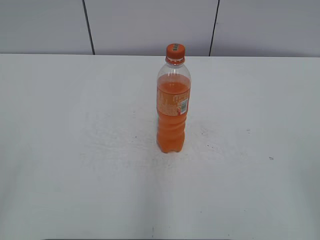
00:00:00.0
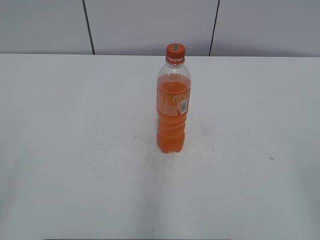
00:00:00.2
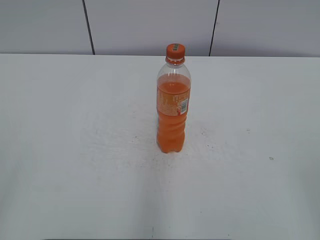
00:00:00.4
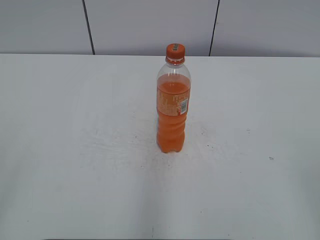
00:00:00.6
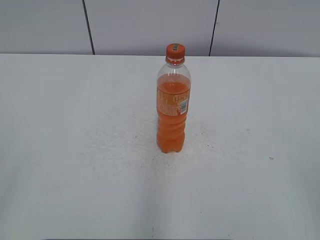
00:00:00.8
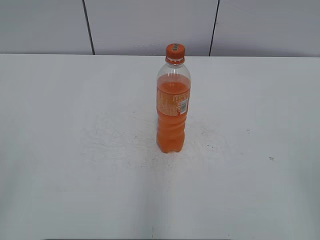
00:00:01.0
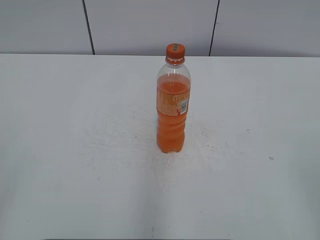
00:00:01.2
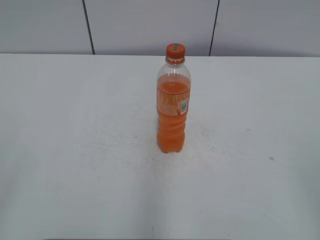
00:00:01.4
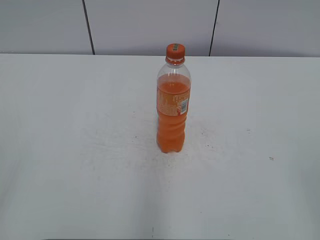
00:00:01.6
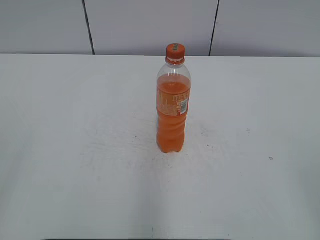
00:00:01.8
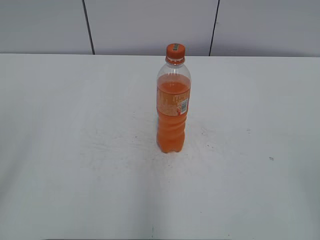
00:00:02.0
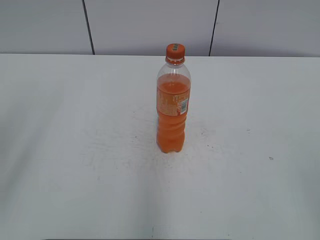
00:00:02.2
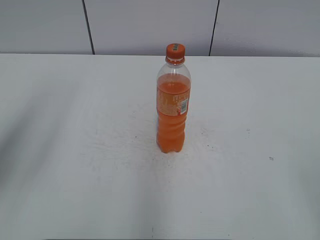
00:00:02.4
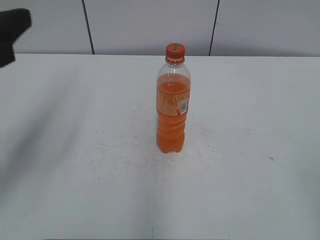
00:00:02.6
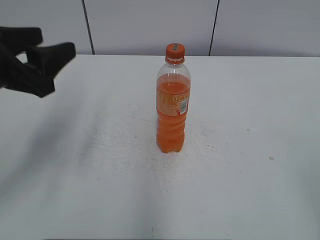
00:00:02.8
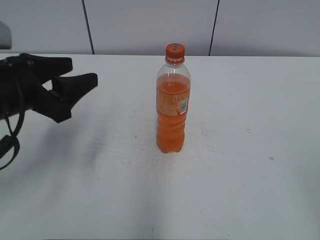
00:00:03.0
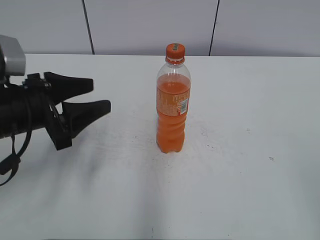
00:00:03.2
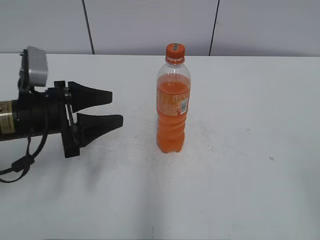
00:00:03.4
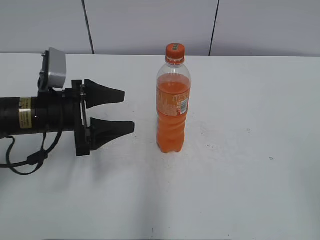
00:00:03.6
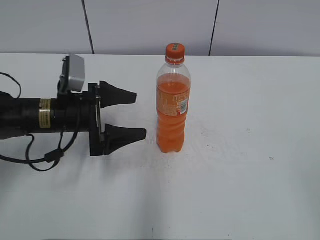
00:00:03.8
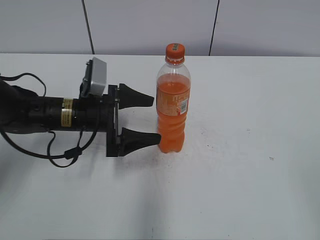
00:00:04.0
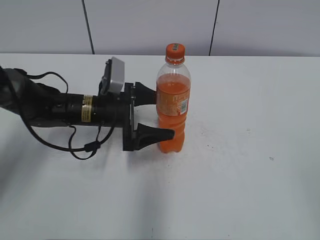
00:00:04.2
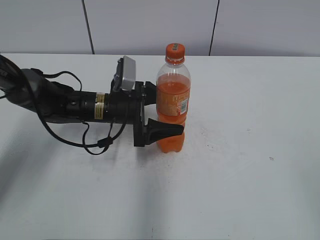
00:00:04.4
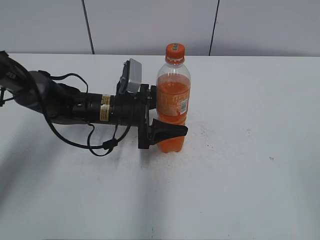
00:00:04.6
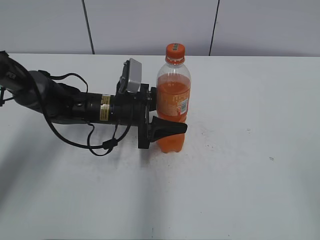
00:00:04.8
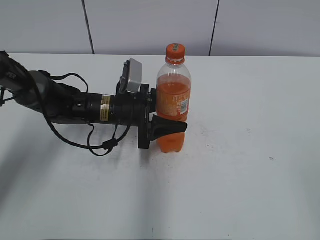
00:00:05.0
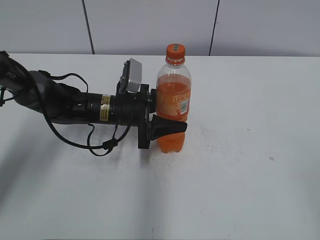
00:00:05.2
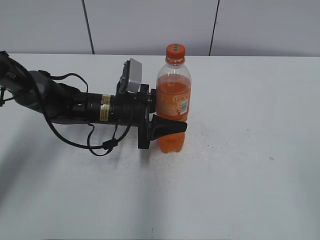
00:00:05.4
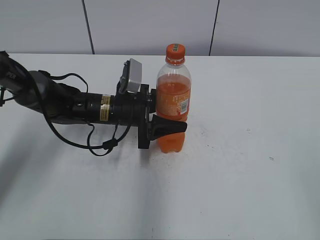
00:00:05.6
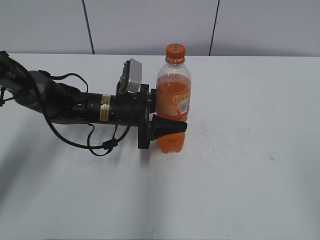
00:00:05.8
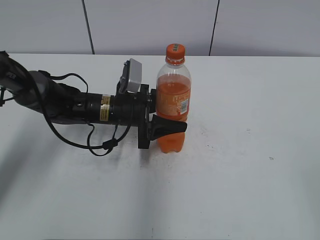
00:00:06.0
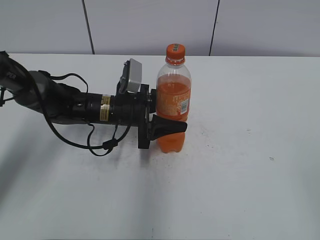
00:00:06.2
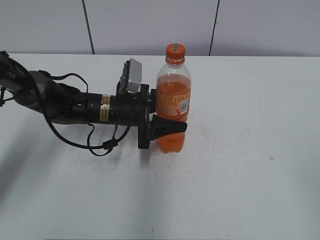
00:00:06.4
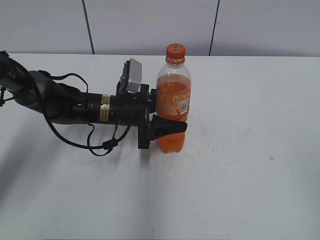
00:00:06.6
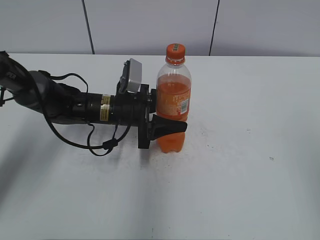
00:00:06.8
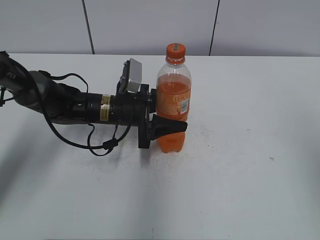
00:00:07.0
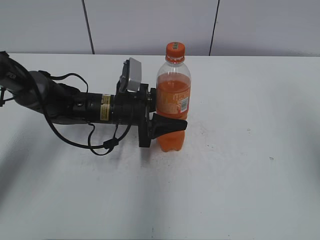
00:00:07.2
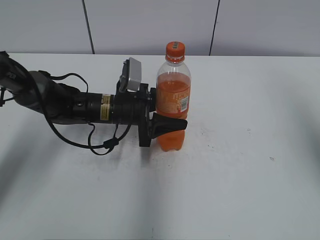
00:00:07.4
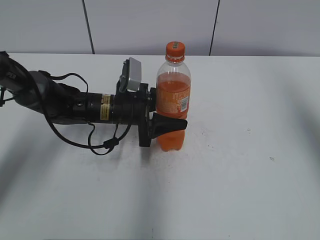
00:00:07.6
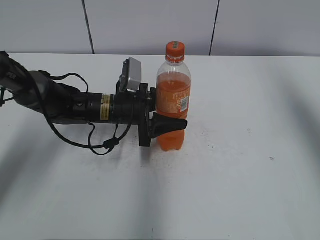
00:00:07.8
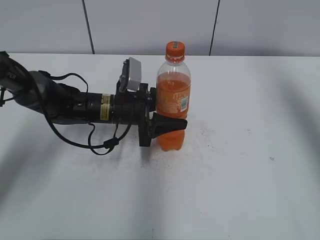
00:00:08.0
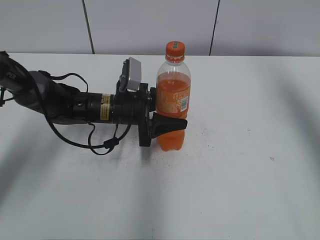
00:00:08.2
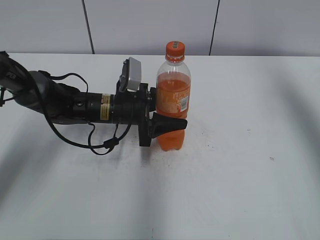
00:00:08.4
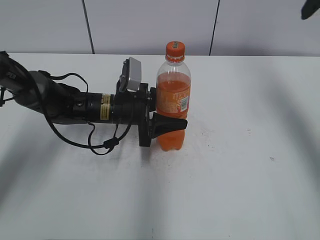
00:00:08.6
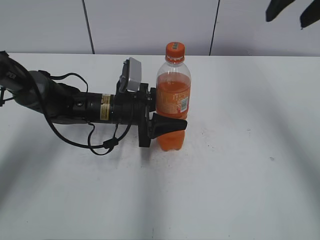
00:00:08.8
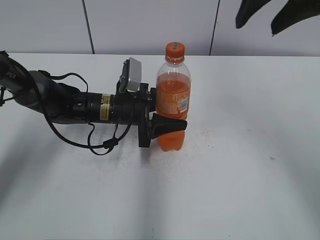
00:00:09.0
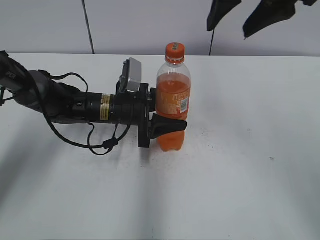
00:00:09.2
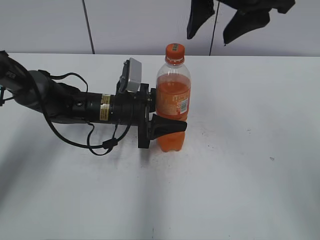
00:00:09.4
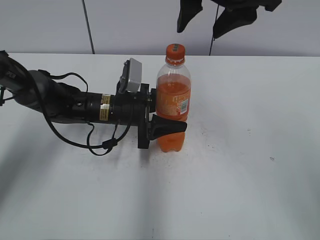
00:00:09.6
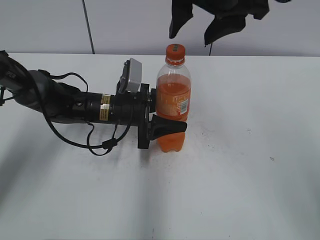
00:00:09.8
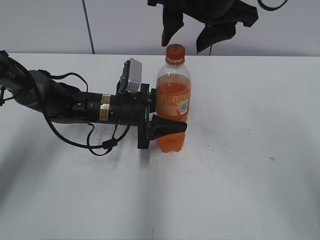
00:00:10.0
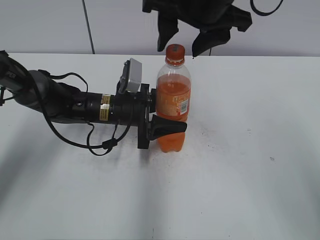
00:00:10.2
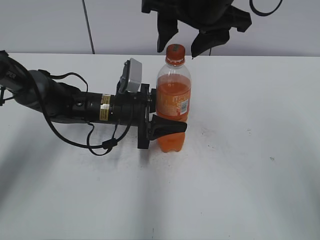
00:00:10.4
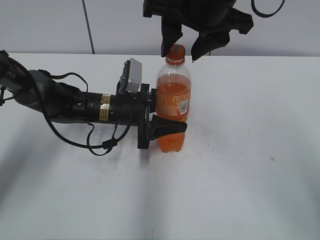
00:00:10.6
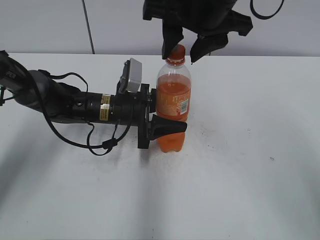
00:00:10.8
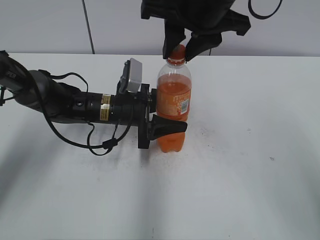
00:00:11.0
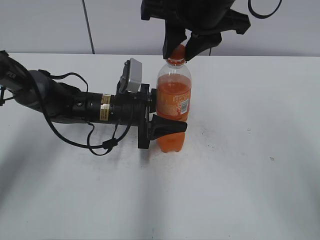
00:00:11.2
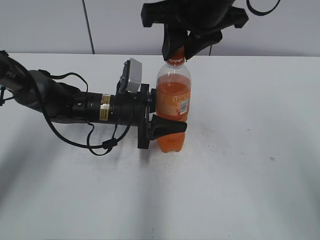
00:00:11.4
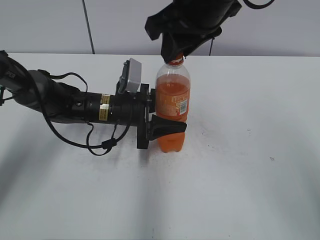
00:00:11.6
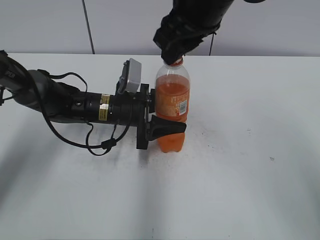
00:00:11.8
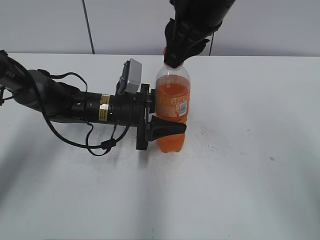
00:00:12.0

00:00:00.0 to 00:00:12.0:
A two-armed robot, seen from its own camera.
Step, 00:00:00.0 to 00:00:05.2: Grab the Mirinda with the left hand.
00:00:01.6 to 00:00:03.0: The left gripper shifts roughly 25 cm forward.
00:00:03.0 to 00:00:04.4: The left gripper heads downward, forward and to the right, covering some 20 cm, and opens its fingers.
00:00:04.4 to 00:00:06.0: The left gripper closes.
00:00:06.0 to 00:00:07.6: The right gripper heads forward and upward, covering roughly 30 cm.
00:00:07.6 to 00:00:09.0: The right gripper shifts roughly 15 cm to the left and forward.
00:00:09.0 to 00:00:10.4: The right gripper travels to the left by approximately 10 cm.
00:00:10.4 to 00:00:12.0: The right gripper closes.

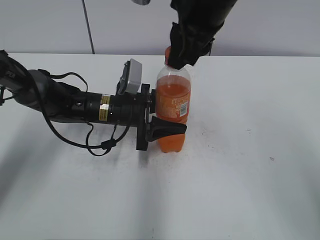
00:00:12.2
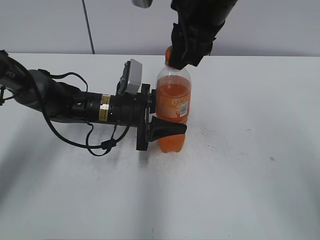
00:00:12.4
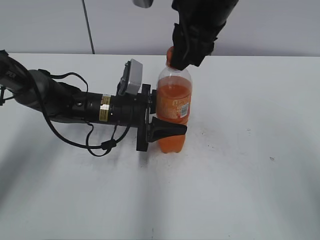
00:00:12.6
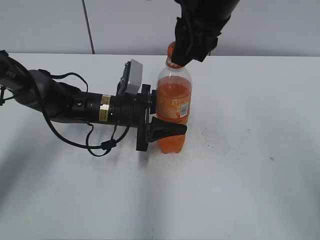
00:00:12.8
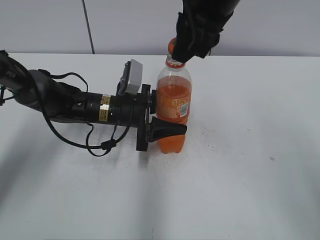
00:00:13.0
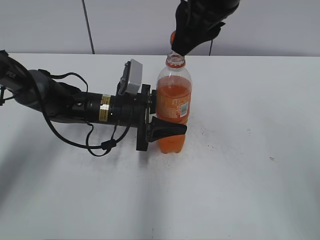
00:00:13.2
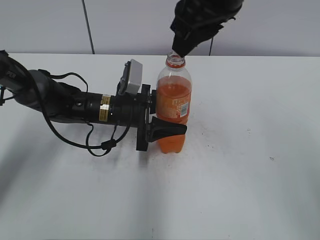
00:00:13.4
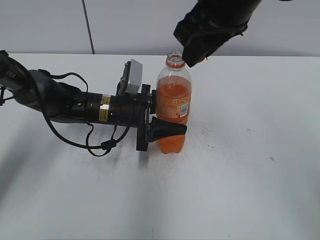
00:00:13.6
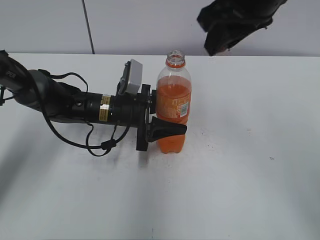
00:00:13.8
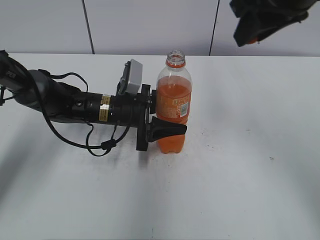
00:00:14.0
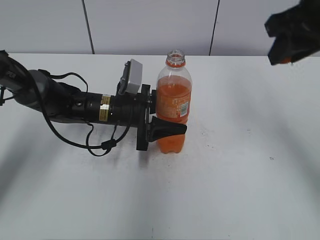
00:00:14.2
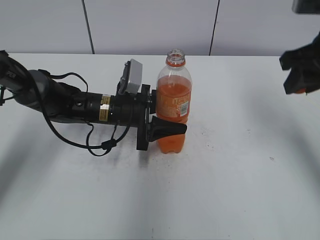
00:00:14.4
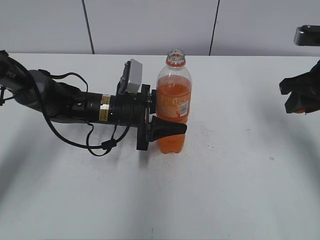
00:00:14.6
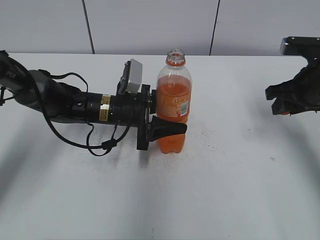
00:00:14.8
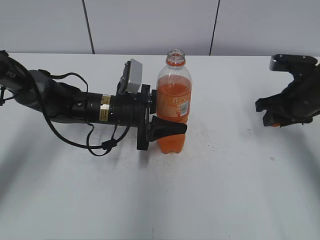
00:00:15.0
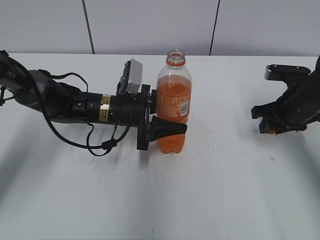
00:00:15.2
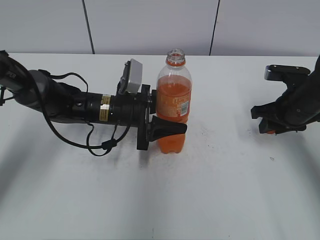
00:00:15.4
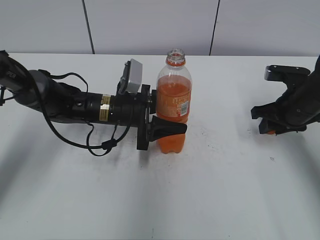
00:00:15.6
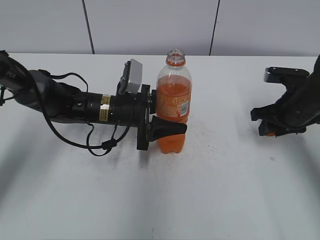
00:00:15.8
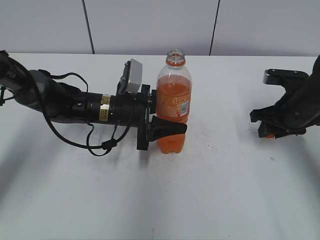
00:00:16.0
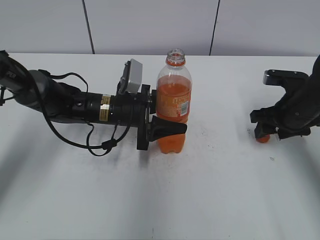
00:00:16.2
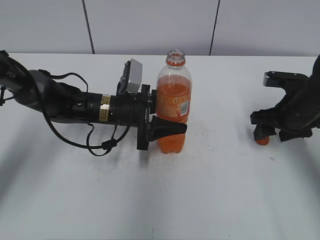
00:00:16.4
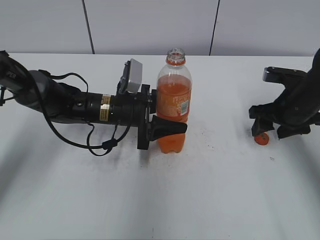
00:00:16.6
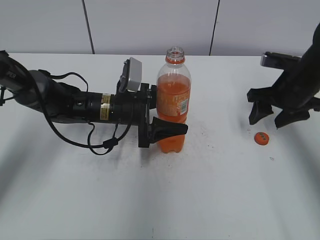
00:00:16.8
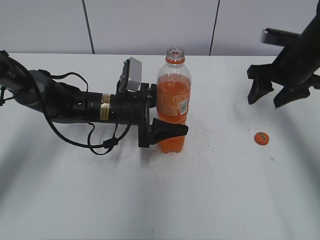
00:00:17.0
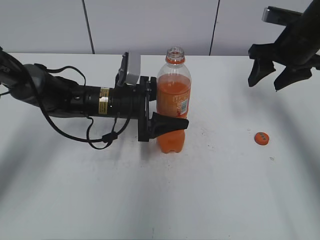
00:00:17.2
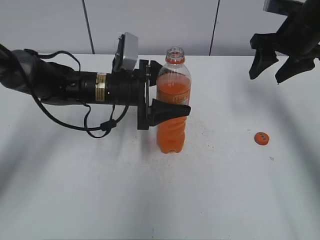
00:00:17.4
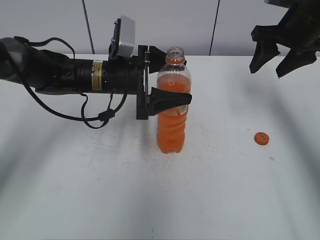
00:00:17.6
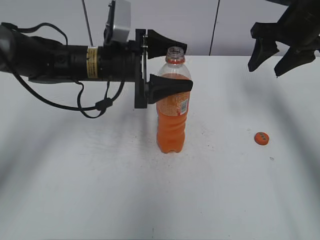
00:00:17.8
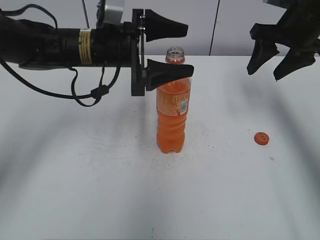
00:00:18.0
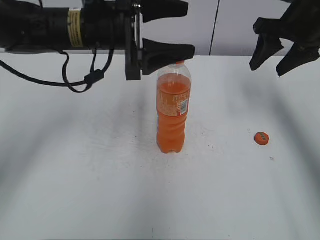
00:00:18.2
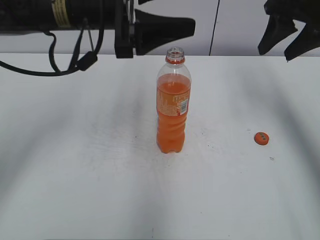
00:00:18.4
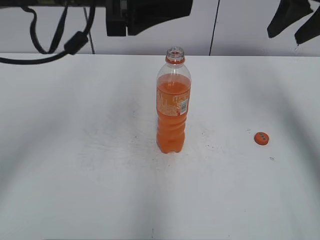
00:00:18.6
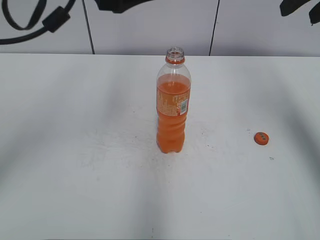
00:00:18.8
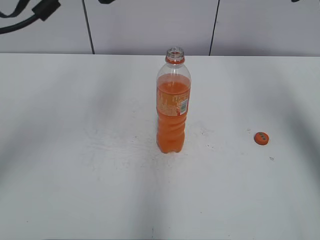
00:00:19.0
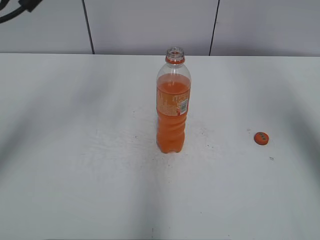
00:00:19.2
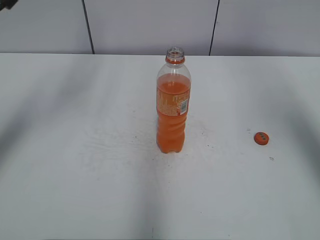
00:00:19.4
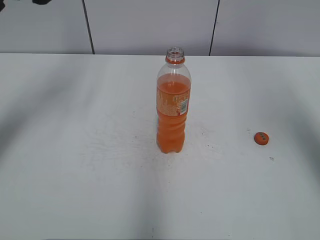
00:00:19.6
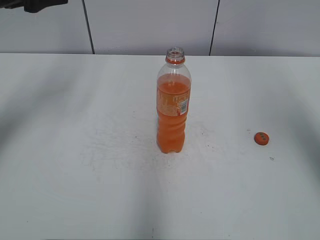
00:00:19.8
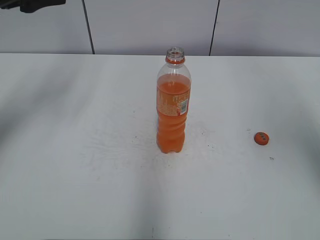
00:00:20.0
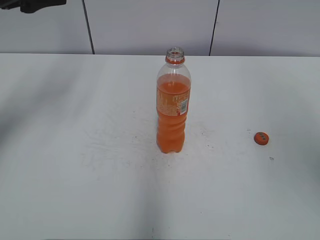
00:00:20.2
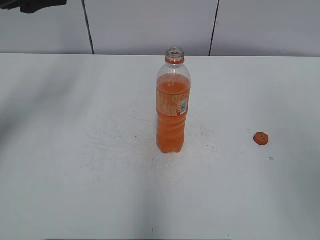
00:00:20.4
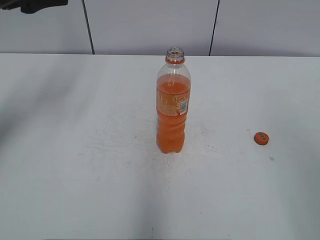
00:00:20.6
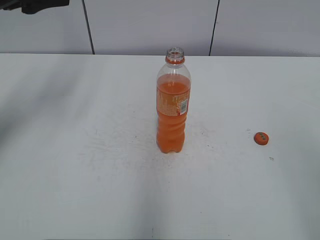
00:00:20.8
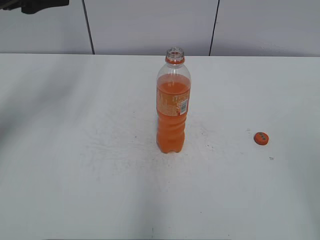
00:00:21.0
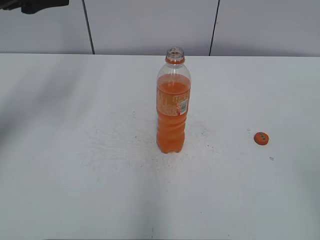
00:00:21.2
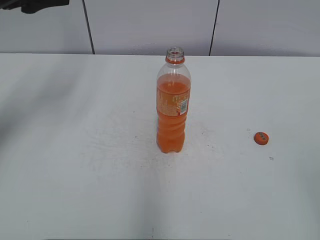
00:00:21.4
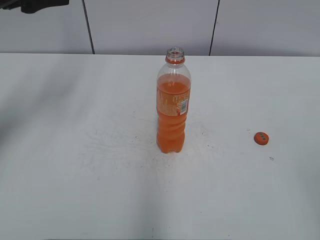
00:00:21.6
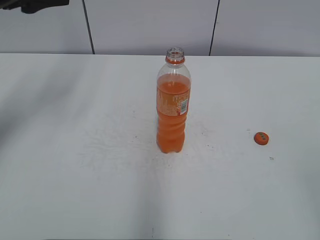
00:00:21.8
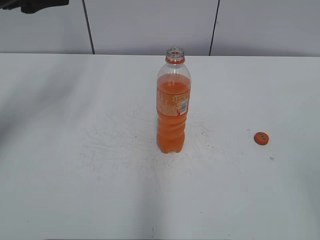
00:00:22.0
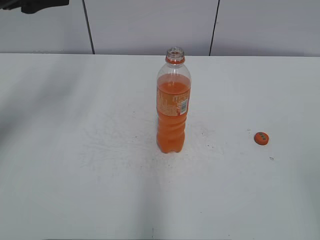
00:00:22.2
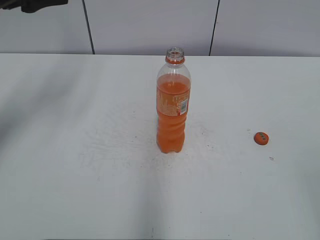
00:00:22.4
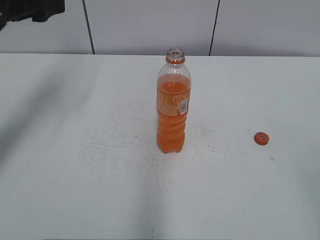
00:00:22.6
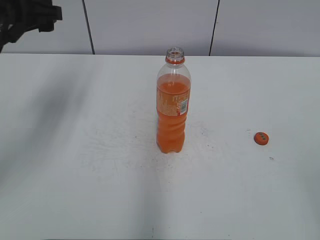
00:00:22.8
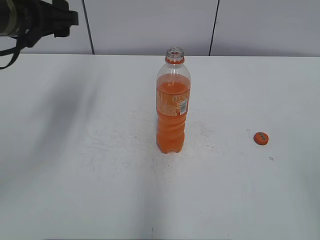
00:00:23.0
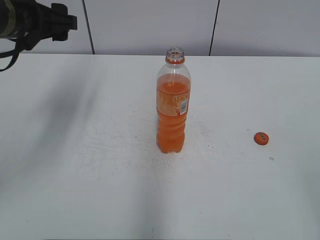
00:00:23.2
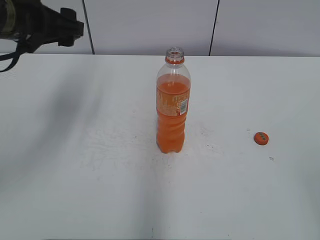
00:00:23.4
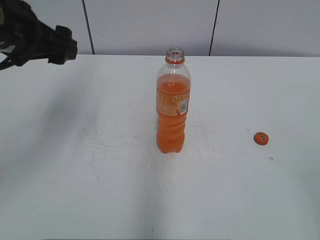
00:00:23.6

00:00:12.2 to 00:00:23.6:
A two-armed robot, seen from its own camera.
Step, 00:00:12.8 to 00:00:16.4: Place the bottle cap on the right.
00:00:13.6 to 00:00:15.0: The right gripper goes about 25 cm downward and to the right.
00:00:15.0 to 00:00:16.4: The right gripper opens its fingers.
00:00:16.4 to 00:00:17.8: The right gripper moves upward and forward, about 15 cm. Meanwhile the left gripper heads upward, covering approximately 10 cm, and opens up.
00:00:17.8 to 00:00:19.4: The right gripper travels upward and backward by approximately 20 cm. Meanwhile the left gripper shifts roughly 20 cm upward and to the left.
00:00:19.4 to 00:00:20.8: The right gripper moves backward and downward, some 25 cm. Meanwhile the left gripper goes approximately 5 cm to the left.
00:00:22.2 to 00:00:23.6: The left gripper travels to the right by some 5 cm.
